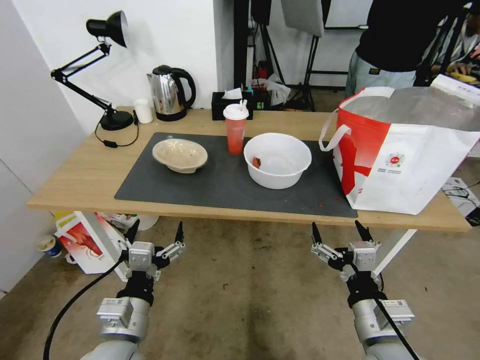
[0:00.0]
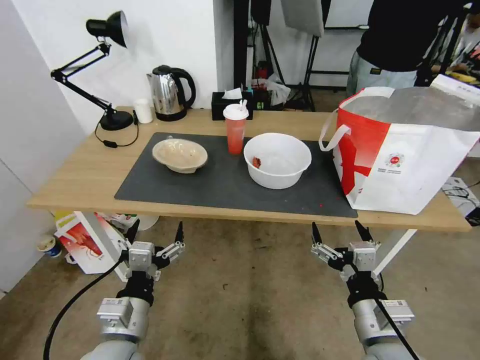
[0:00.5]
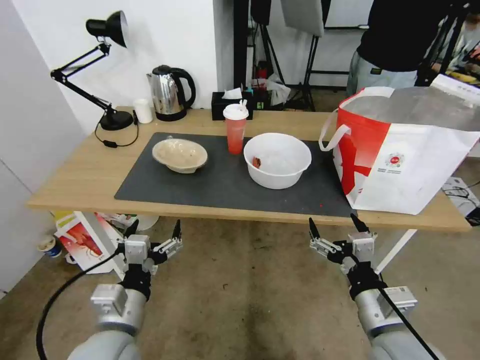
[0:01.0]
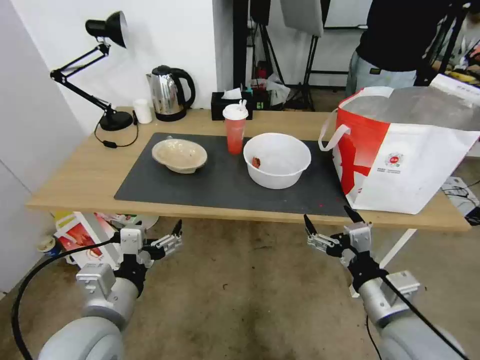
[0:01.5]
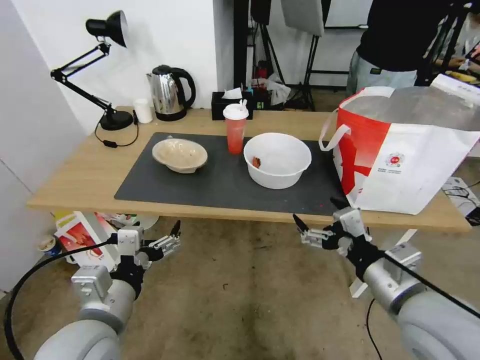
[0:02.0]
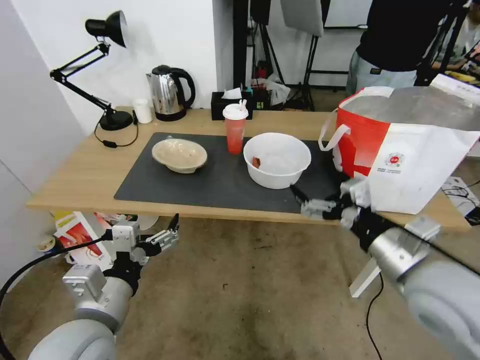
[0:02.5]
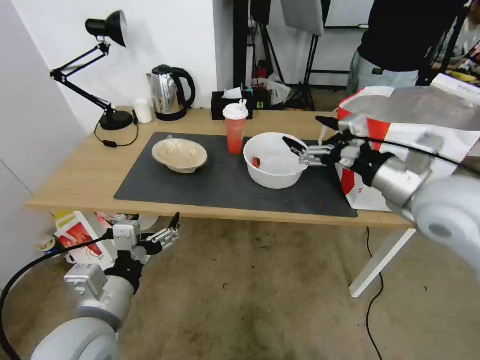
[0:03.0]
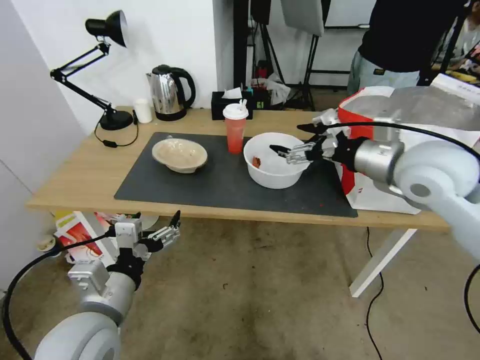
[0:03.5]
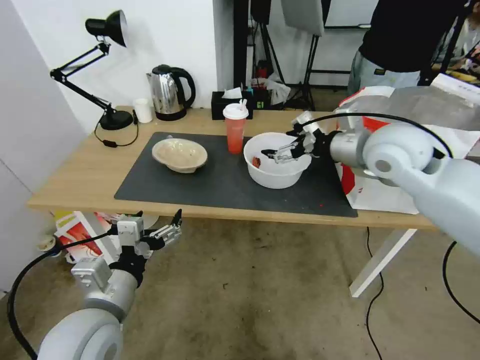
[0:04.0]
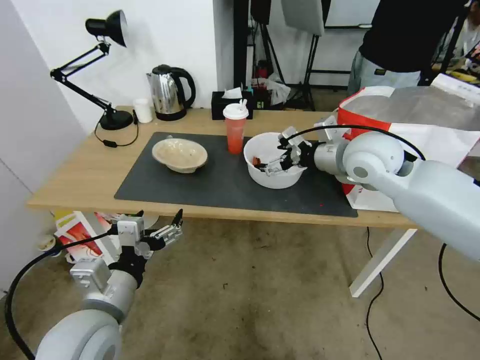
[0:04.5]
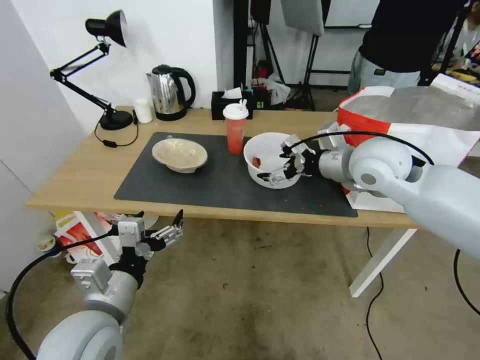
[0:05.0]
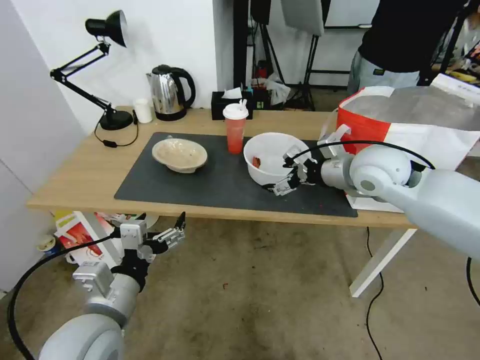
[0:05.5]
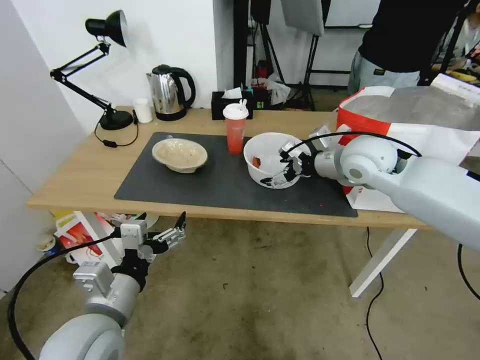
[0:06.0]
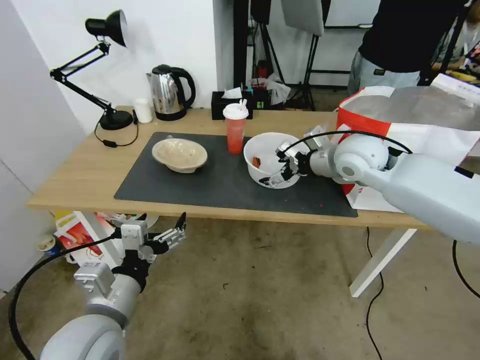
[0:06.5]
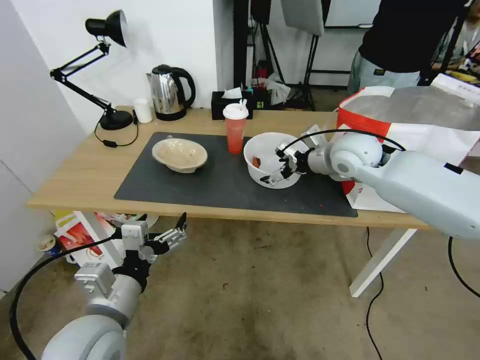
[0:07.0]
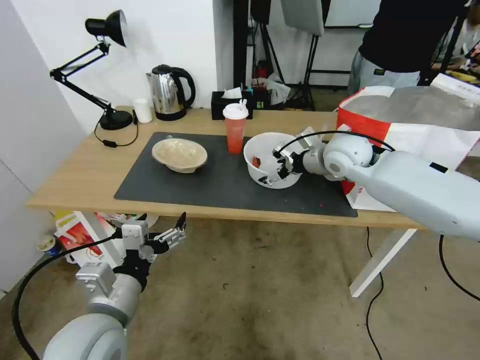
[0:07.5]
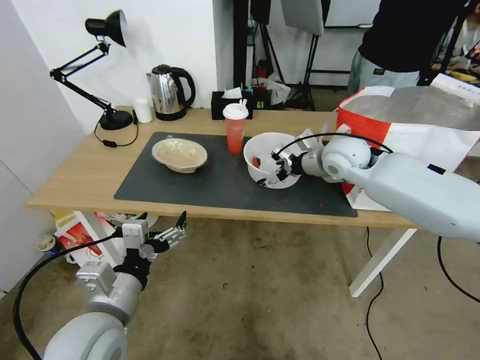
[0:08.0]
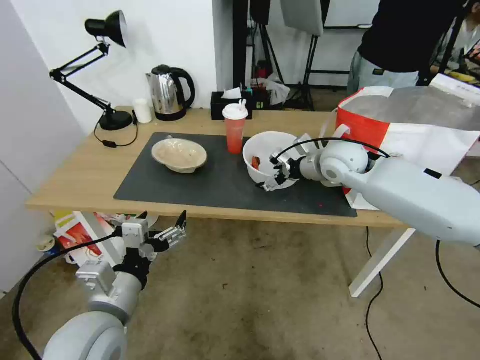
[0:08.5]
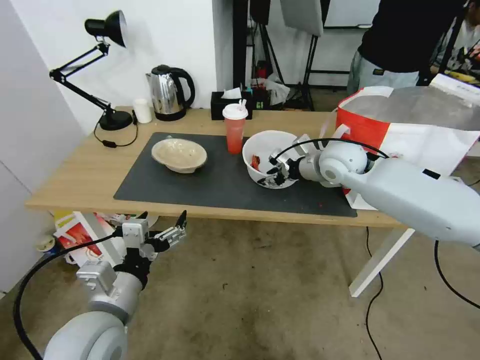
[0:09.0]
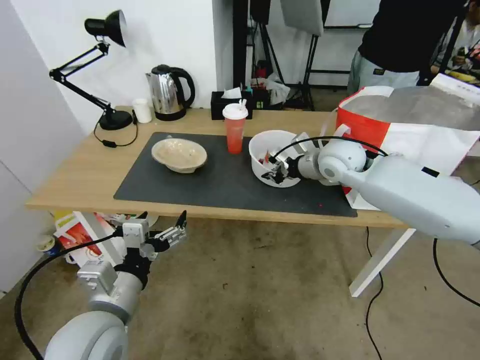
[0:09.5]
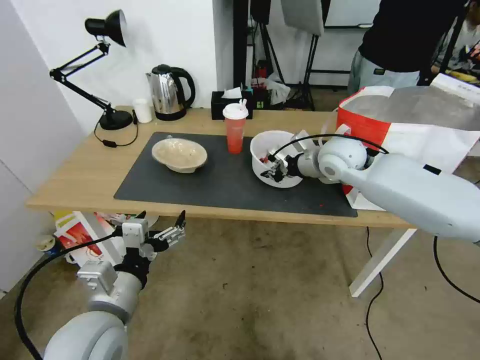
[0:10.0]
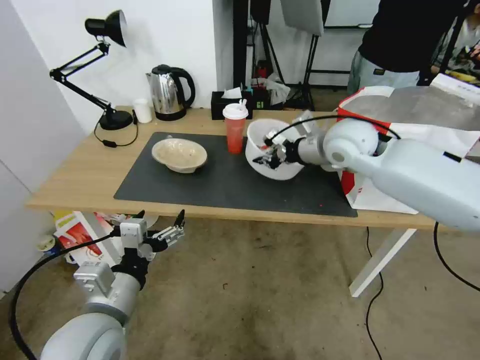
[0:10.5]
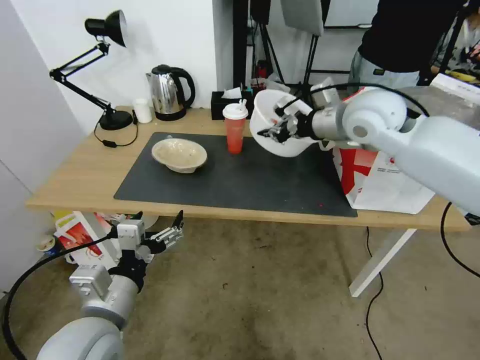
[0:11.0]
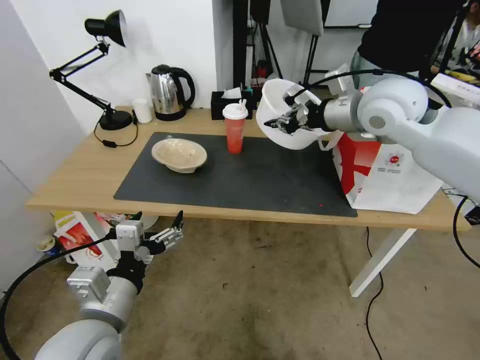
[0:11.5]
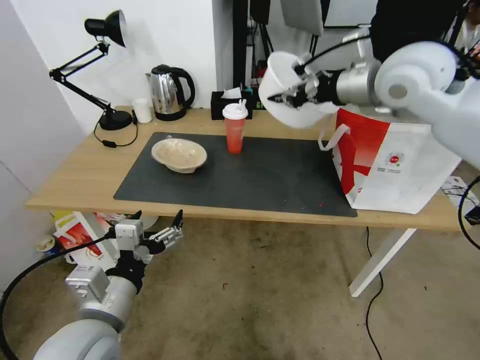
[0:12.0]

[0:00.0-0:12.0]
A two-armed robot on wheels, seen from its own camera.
Task of the whole recording: Pick up the trash from the table and place it into the takeout bag.
0:02.0 to 0:04.0: The right gripper goes roughly 25 cm forward and upward.
0:04.0 to 0:06.0: The right gripper shifts by roughly 5 cm.
0:06.0 to 0:08.0: The right gripper ends up some 5 cm from where it was.
0:08.0 to 0:10.0: The right gripper closes its fingers.
0:10.0 to 0:12.0: The right gripper moves upward, approximately 20 cm.

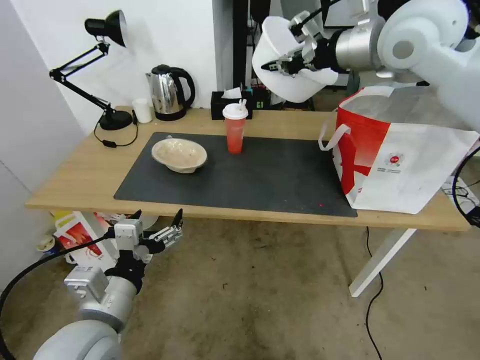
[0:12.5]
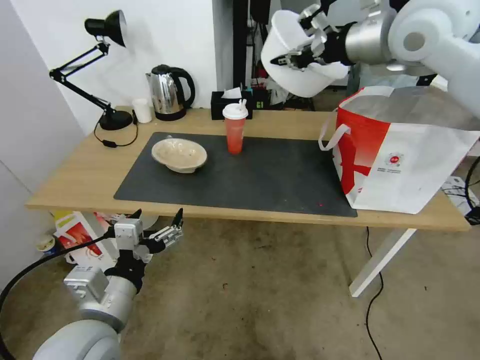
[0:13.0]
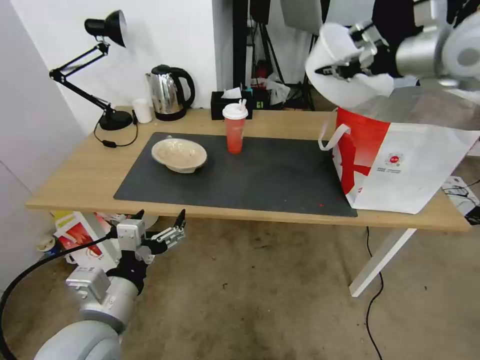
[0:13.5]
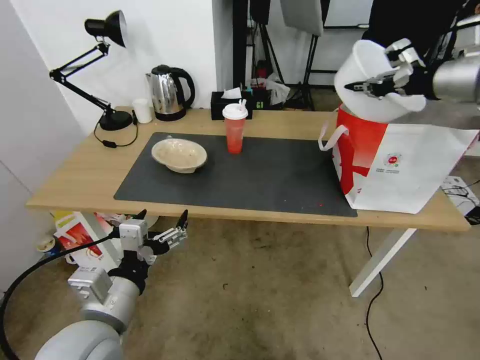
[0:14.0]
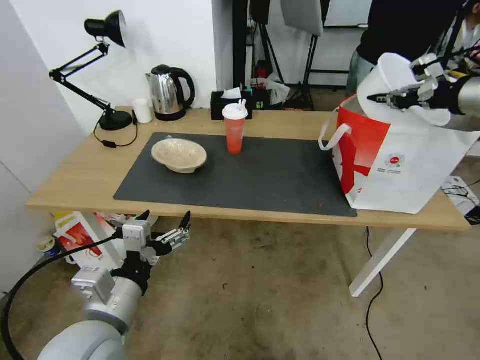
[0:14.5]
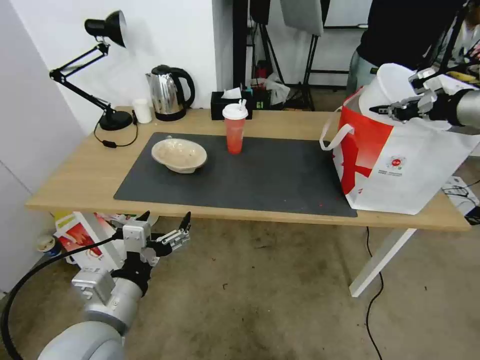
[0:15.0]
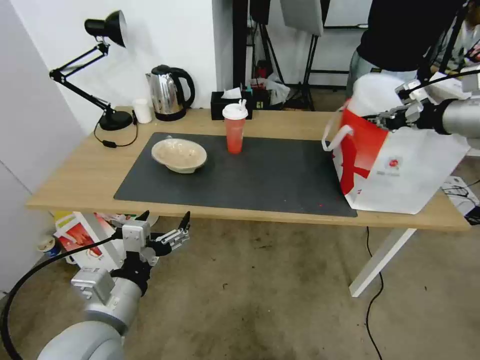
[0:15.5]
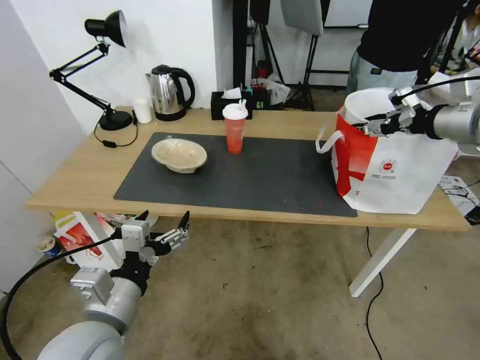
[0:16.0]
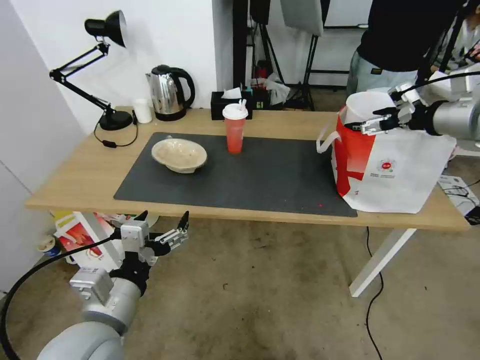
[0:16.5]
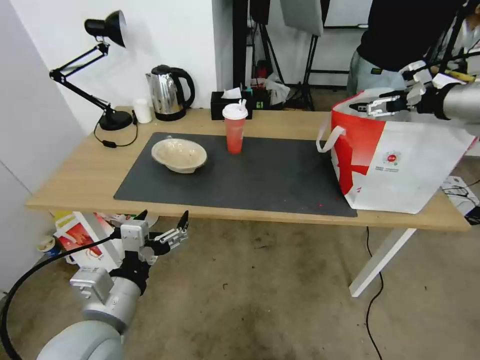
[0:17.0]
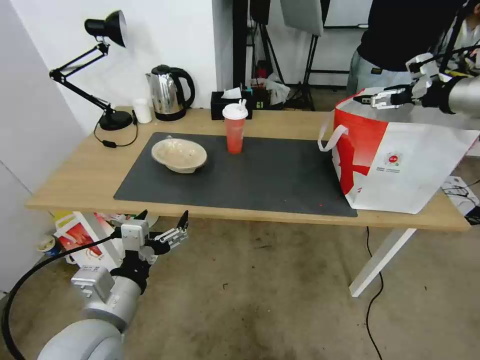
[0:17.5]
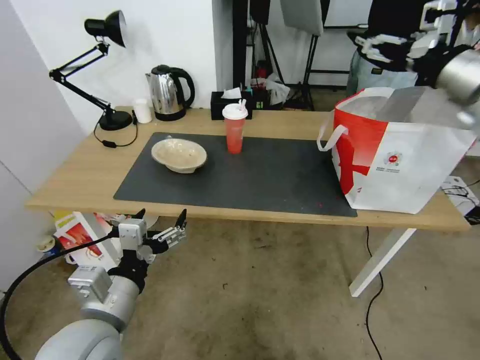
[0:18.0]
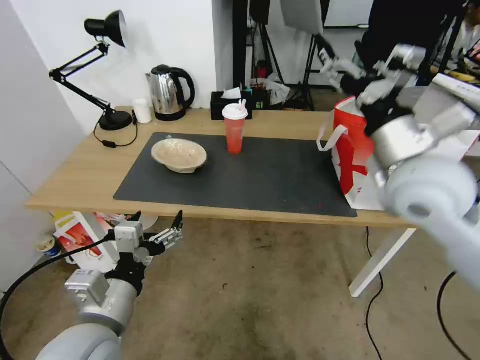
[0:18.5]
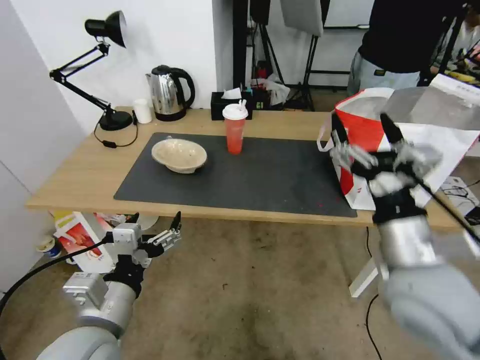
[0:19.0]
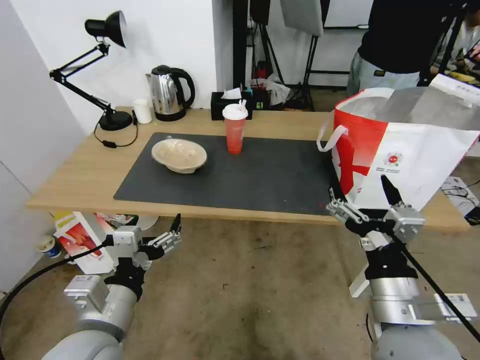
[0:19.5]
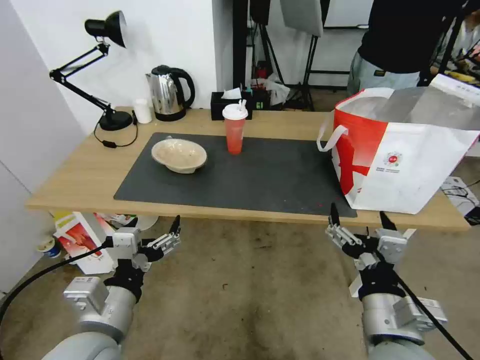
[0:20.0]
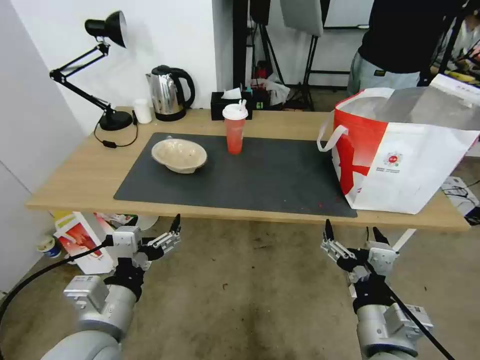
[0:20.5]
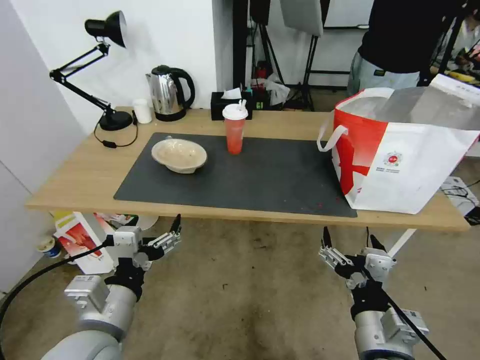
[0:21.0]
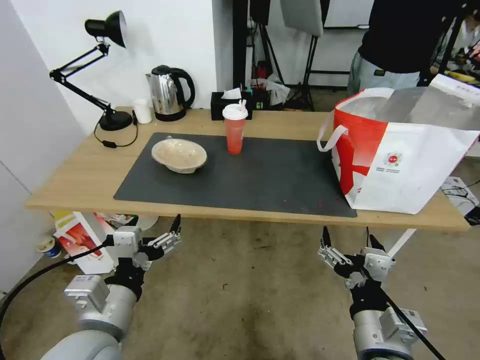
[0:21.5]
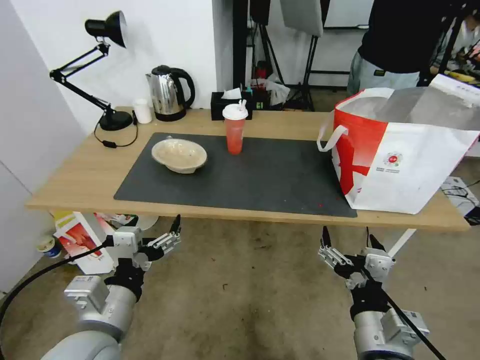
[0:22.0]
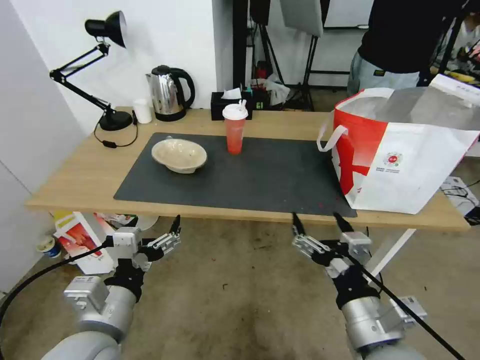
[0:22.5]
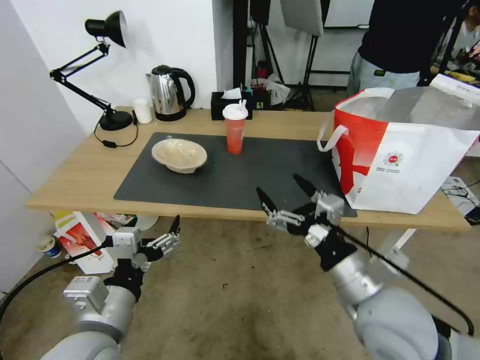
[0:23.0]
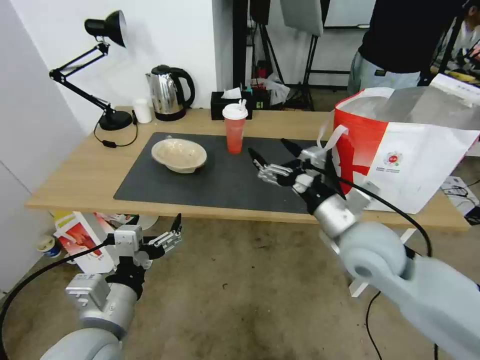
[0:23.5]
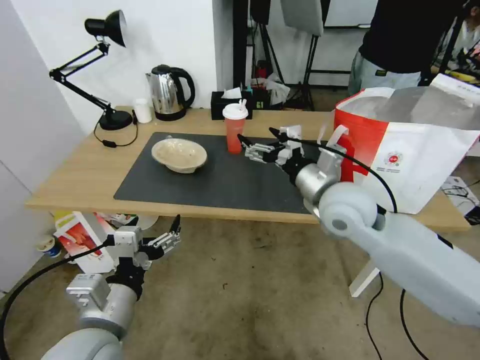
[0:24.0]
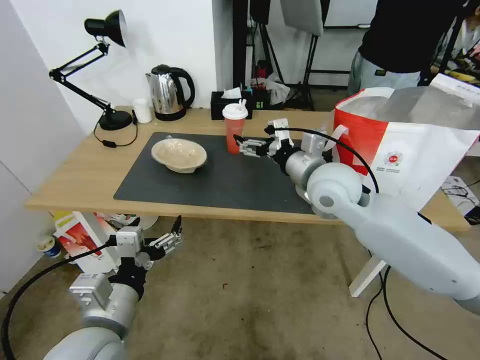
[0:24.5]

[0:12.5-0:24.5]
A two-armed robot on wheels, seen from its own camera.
Task of the whole recording: Pick up the trash from the table and place it into the takeout bag.
0:12.5 to 0:14.5: The right gripper goes about 20 cm to the right.
0:14.5 to 0:16.5: The right gripper opens.
0:16.5 to 0:18.5: The right gripper shifts some 20 cm to the left and backward.
0:18.5 to 0:20.5: The right gripper goes about 30 cm backward and downward.
0:22.5 to 0:24.5: The right gripper shifts some 25 cm forward.

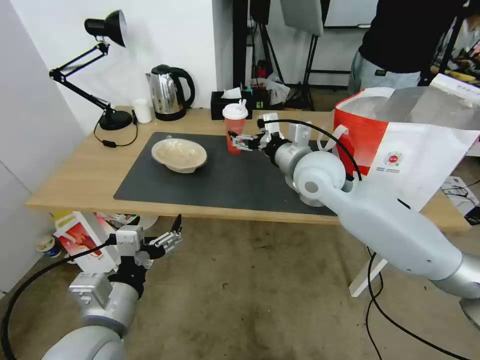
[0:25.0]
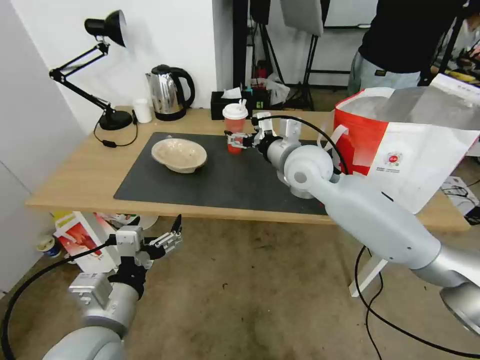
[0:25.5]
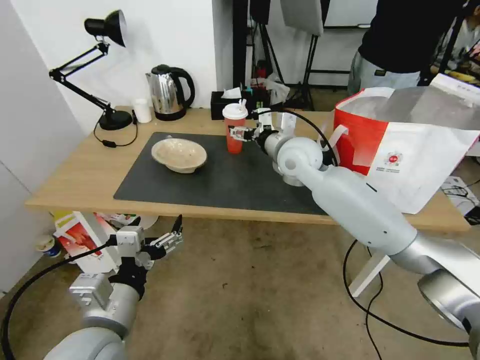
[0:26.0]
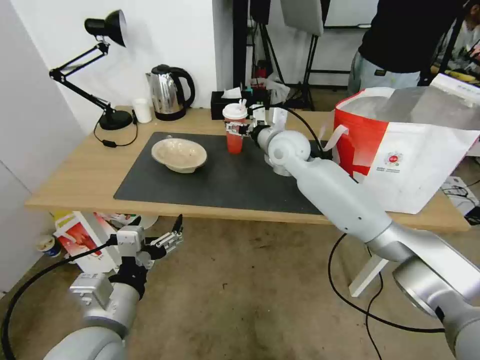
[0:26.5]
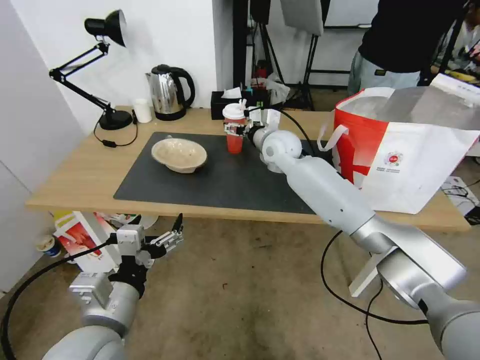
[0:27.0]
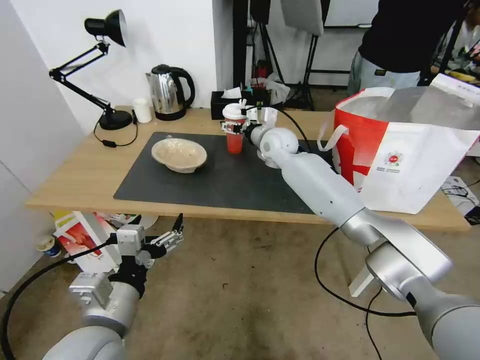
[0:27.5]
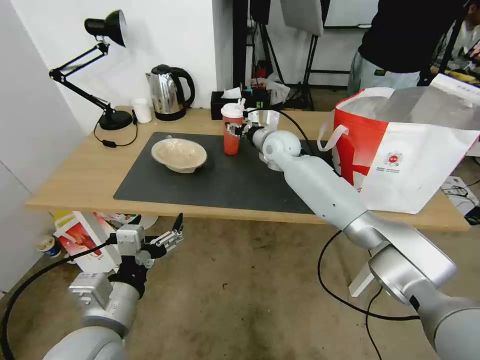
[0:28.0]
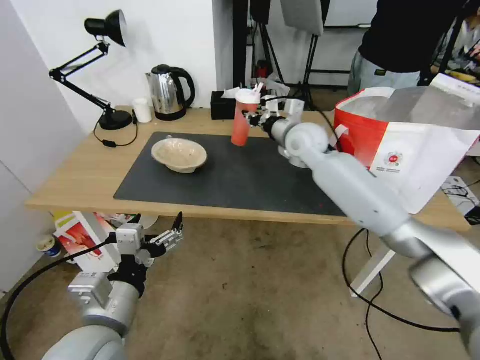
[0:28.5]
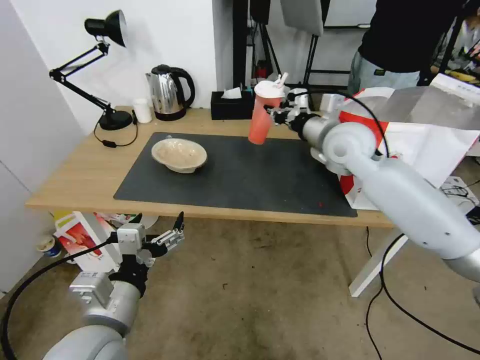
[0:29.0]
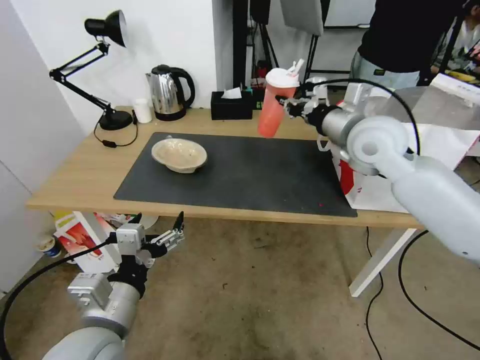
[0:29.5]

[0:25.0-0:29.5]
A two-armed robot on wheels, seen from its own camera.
Task of the whole recording: Pick up the trash from the table and place it into the takeout bag.
0:25.0 to 0:27.0: The right gripper moves forward, some 15 cm.
0:27.0 to 0:29.5: The right gripper travels to the right, backward and upward by some 20 cm, and closes.
